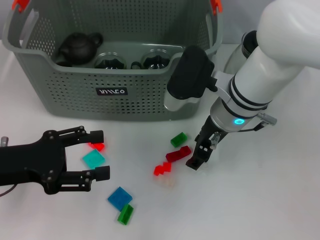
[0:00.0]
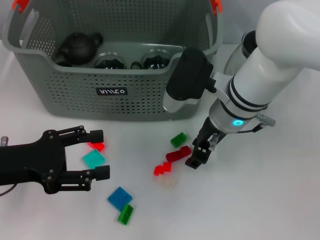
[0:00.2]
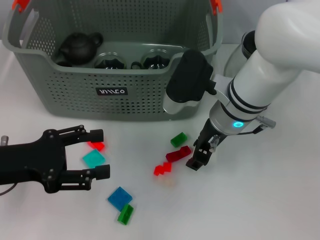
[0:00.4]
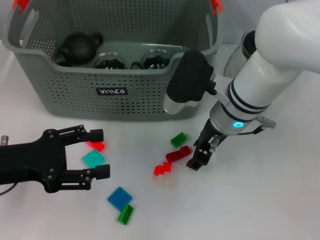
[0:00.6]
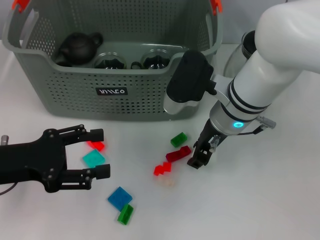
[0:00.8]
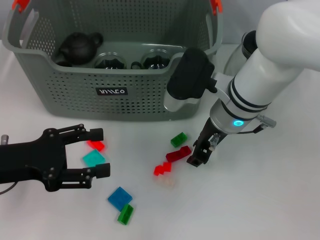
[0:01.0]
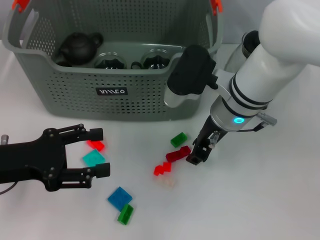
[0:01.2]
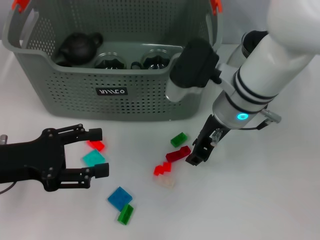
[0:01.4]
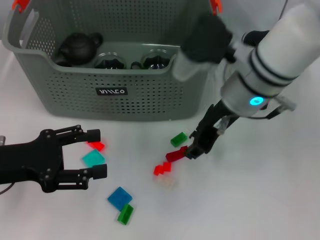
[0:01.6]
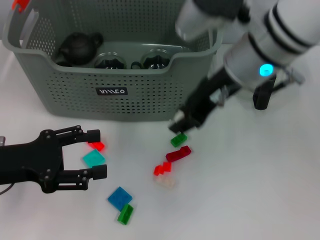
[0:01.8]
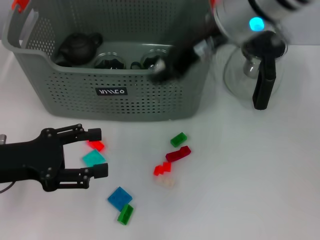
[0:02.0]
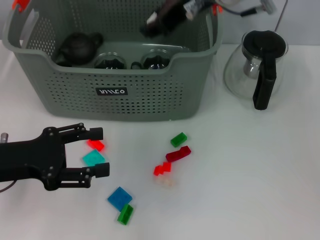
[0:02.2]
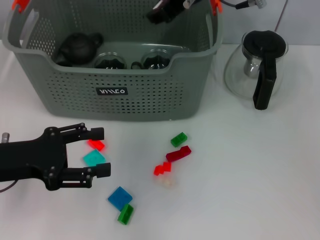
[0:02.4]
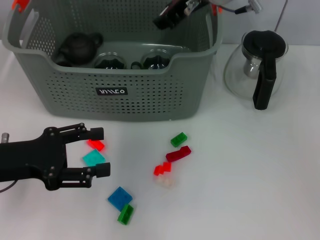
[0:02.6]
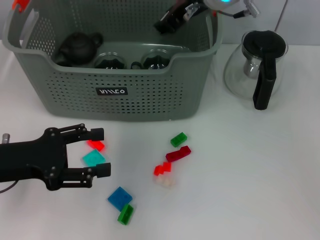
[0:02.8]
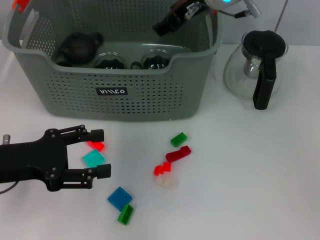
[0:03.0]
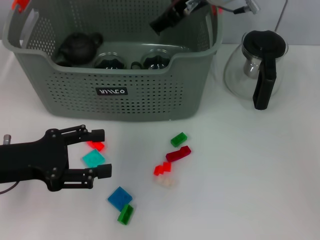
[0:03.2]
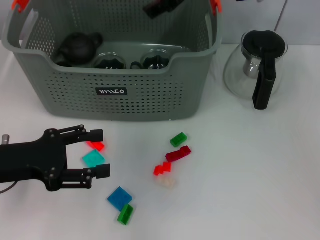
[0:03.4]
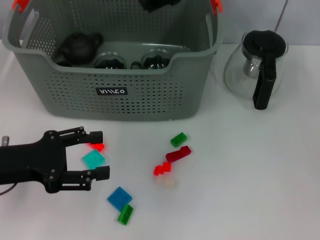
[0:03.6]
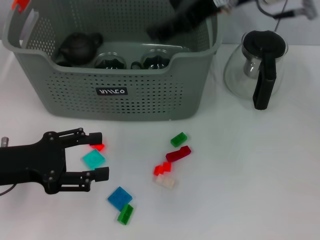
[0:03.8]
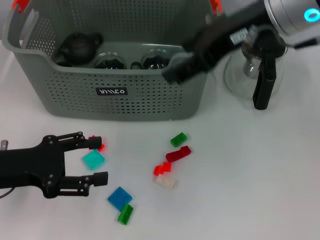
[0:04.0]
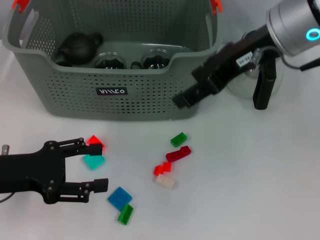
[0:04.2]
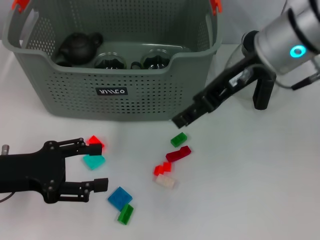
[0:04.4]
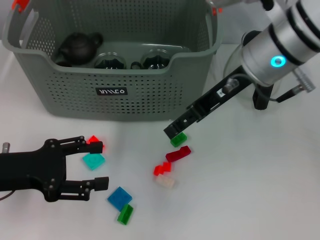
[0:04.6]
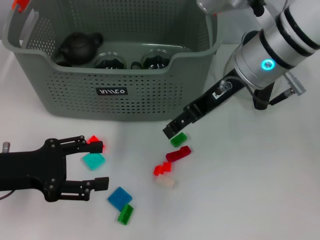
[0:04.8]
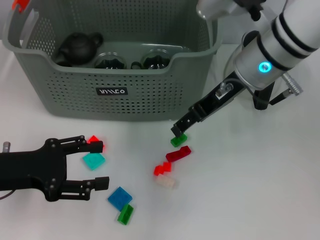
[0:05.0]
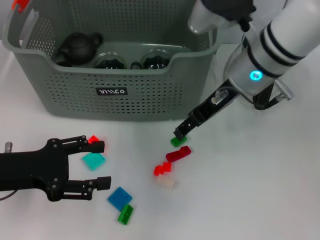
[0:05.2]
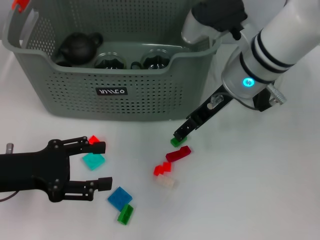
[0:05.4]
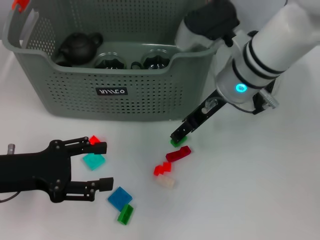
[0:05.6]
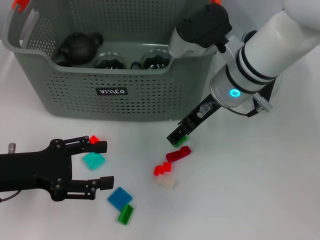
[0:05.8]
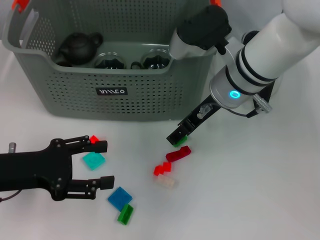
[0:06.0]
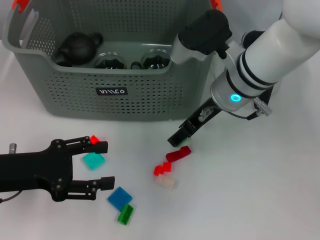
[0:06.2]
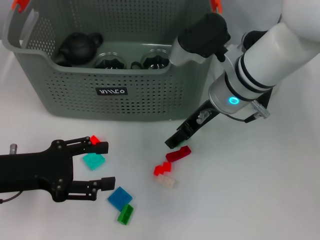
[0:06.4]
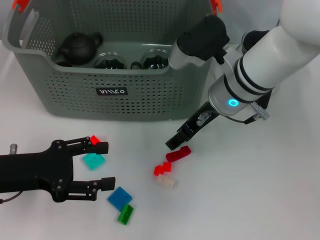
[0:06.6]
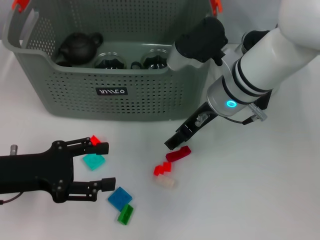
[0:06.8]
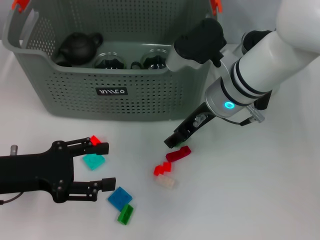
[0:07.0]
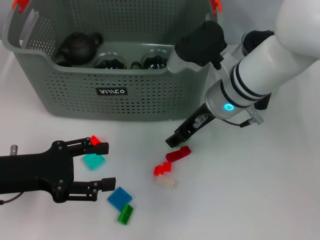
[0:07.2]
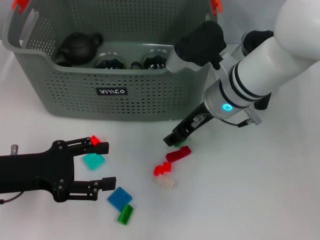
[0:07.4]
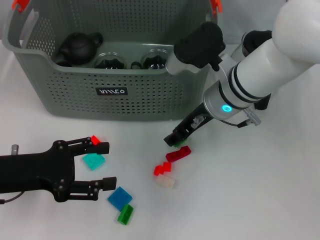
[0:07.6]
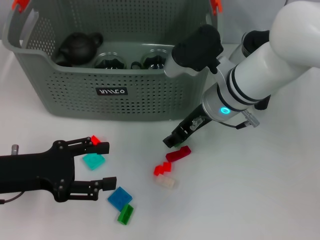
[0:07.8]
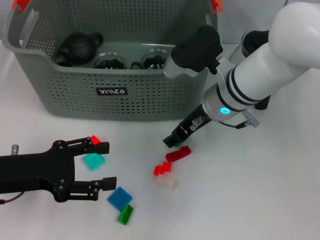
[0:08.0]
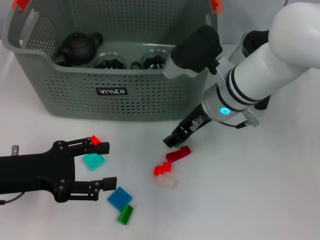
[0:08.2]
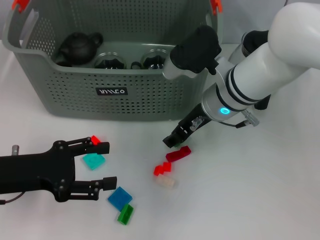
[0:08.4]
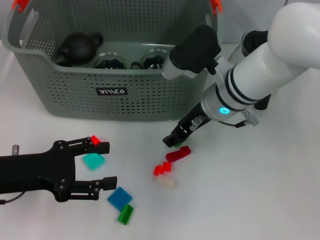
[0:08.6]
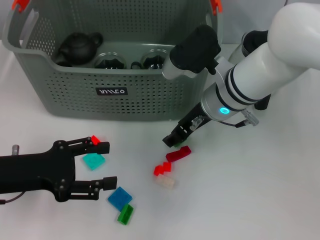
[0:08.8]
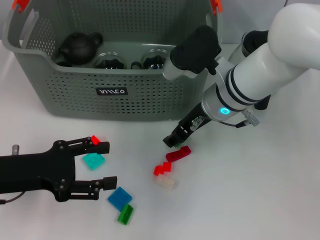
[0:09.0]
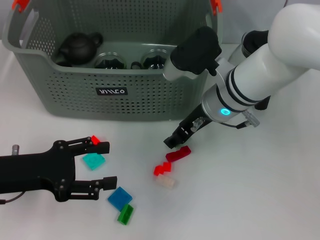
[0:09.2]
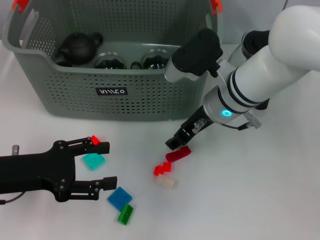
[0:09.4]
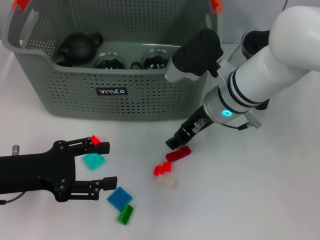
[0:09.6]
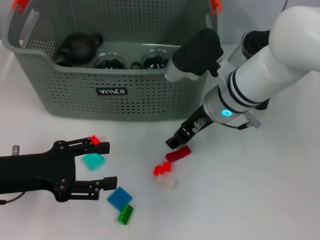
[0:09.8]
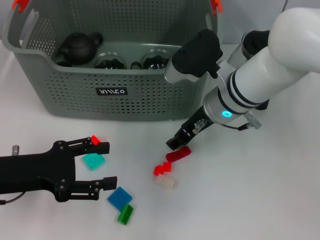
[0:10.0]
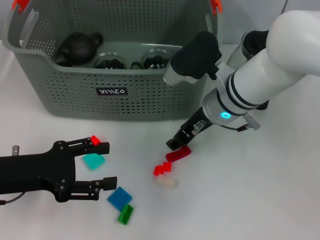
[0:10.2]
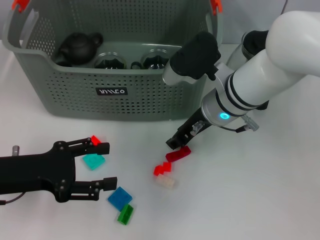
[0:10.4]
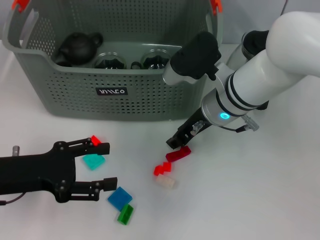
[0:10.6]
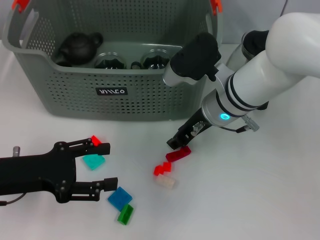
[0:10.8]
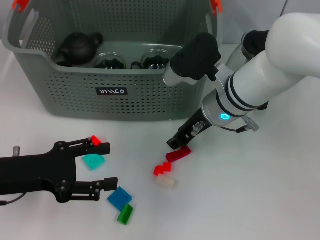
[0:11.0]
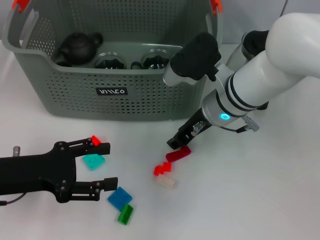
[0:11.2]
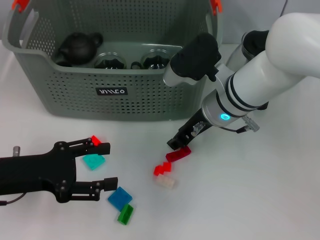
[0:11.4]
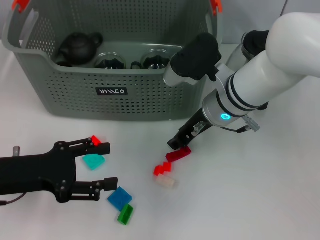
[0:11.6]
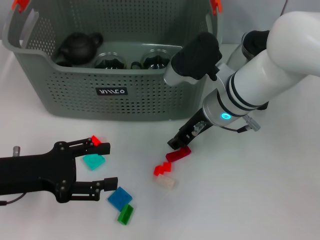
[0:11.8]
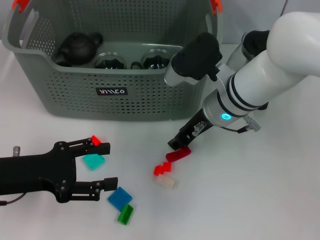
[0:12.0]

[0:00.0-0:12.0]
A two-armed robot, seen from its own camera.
Task of the whole recording: pick up the teacup on the table and place it into the storage bin, pick up the block on the table and place it into the storage bin.
Step, 0:01.0 to 0:02.8: Place the white block in the storage box with right gripper.
0:00.0 to 0:01.6: The right gripper goes approximately 5 cm upward.
0:01.6 to 0:03.0: The right gripper shifts roughly 10 cm forward and upward.
0:03.0 to 0:04.4: The right gripper is displaced backward and to the right by roughly 10 cm, and opens up.
0:04.4 to 0:06.0: The right gripper heads downward, covering about 10 cm.
0:06.0 to 0:07.6: There are only small adjustments of the grippers.
0:07.6 to 0:12.0: The two grippers keep their place.

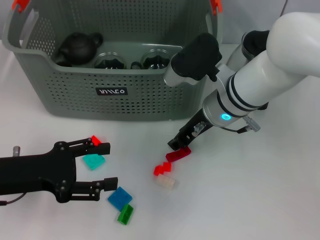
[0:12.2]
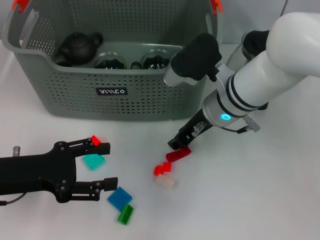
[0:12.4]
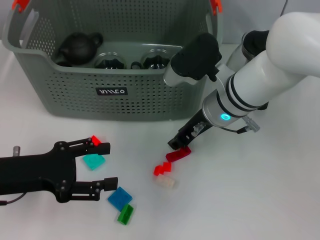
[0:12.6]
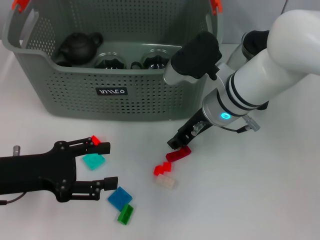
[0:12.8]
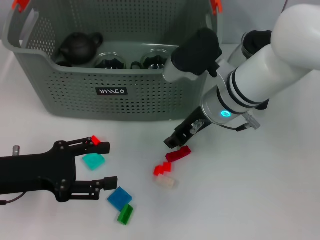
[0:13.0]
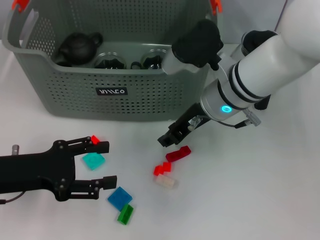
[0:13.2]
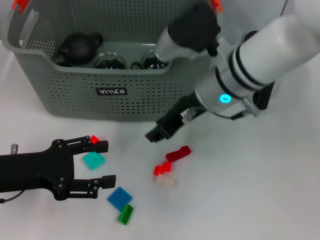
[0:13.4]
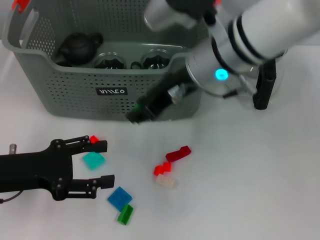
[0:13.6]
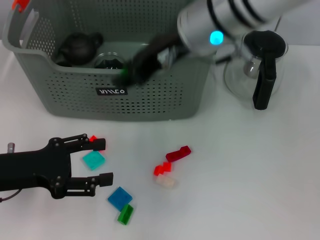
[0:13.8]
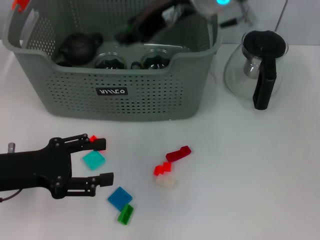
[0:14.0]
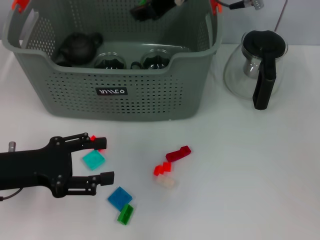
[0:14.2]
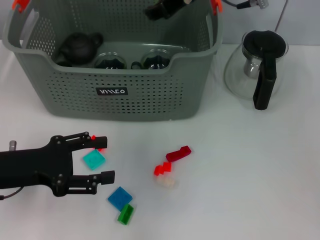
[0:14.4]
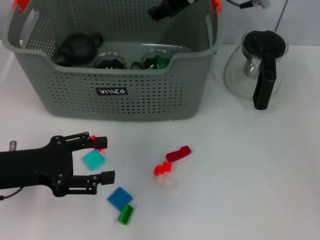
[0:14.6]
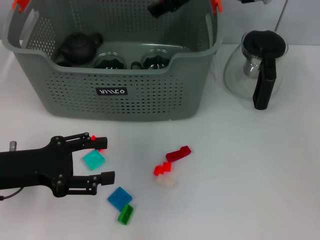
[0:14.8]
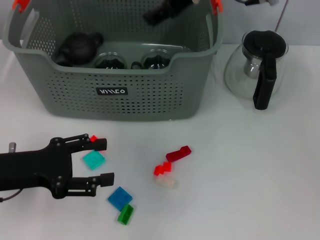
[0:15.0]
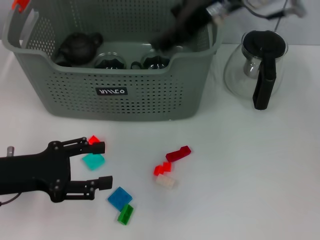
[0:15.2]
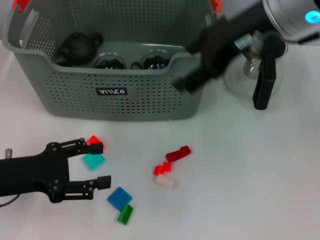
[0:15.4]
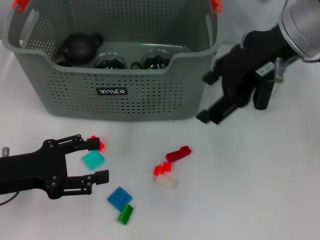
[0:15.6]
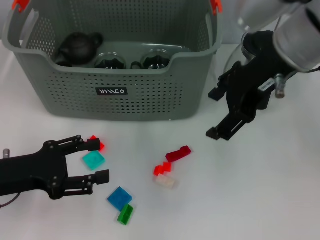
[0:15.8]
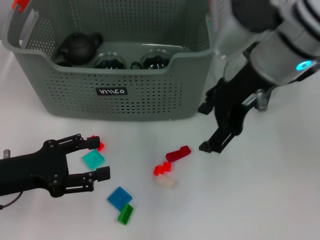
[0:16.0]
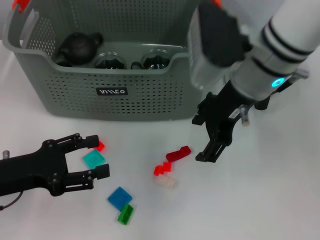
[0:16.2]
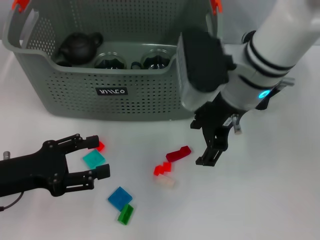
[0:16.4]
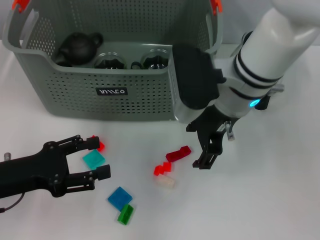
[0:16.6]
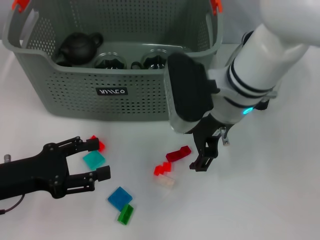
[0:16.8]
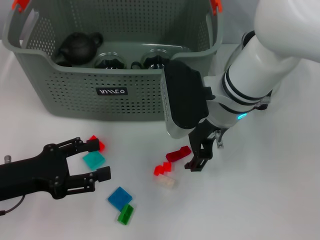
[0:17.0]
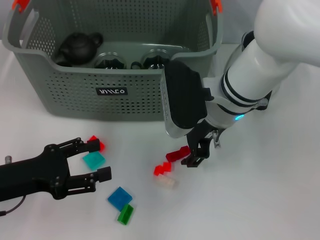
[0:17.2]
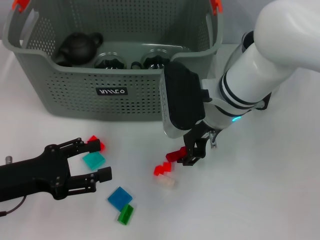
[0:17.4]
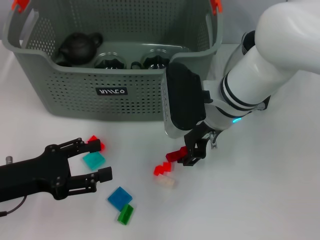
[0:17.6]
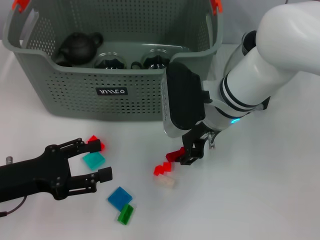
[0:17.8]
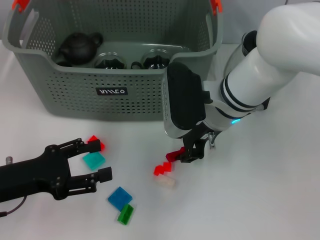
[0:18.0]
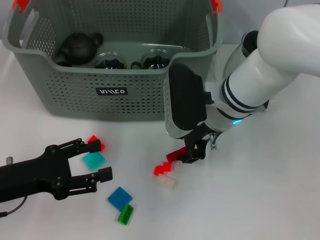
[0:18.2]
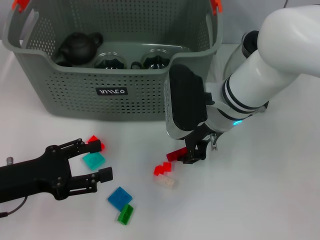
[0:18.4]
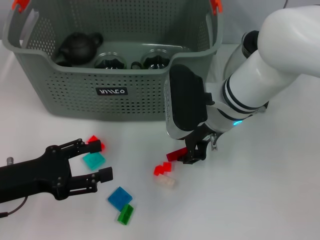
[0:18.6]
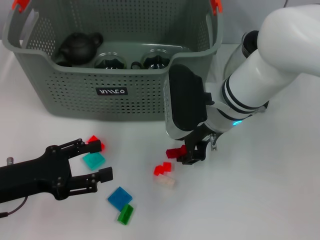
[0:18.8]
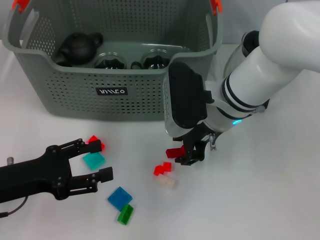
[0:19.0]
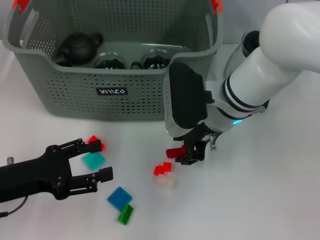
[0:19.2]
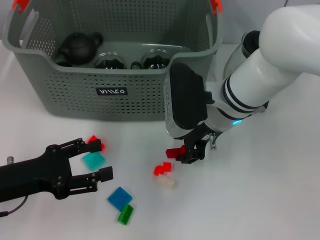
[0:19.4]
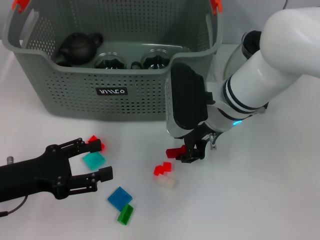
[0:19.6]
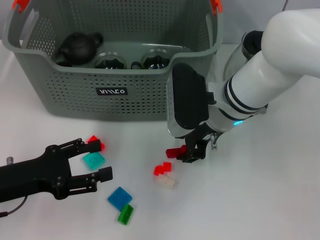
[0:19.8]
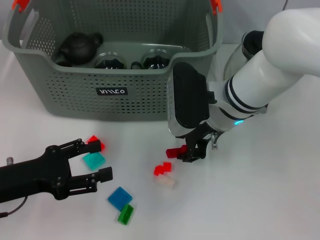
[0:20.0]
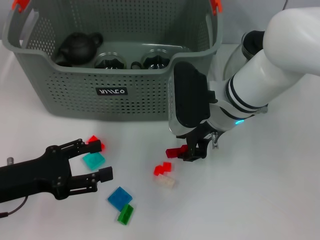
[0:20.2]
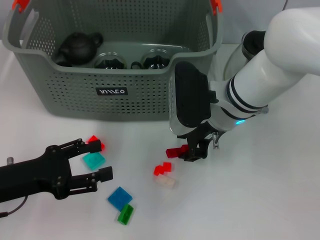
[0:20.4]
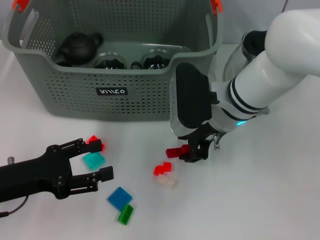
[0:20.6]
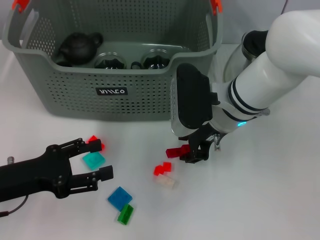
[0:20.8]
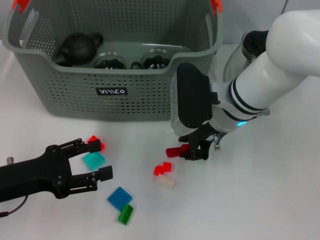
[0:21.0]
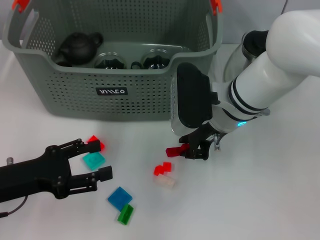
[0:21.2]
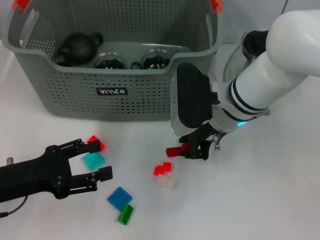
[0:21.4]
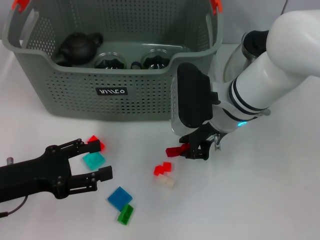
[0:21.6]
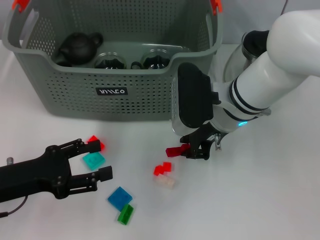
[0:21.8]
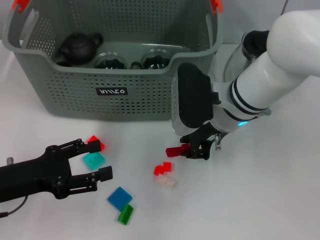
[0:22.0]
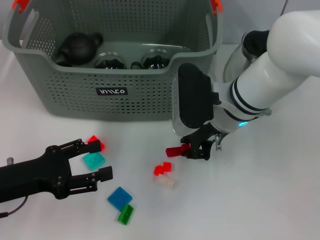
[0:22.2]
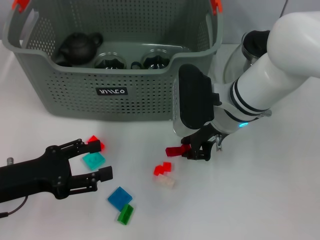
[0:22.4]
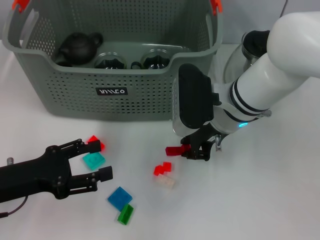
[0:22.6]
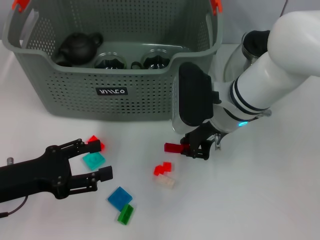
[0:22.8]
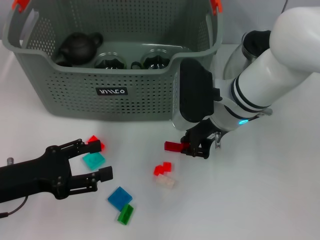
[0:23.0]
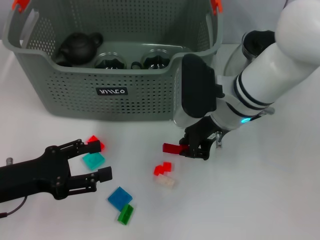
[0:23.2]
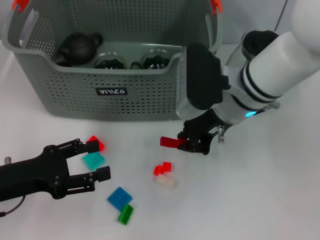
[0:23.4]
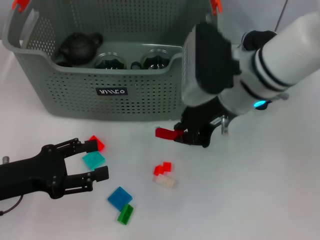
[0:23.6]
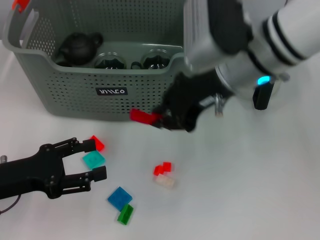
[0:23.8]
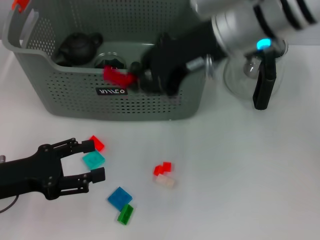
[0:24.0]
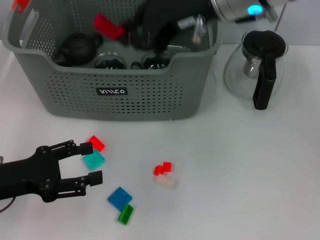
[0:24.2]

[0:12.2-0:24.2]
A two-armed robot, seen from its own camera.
Task of the whole recording: pick up the teacup on the table and place it into the storage bin, pick up the block on the table and place it into the storage bin.
Step, 0:12.6 to 0:14.6: Place the green block in the storage box with right gripper.
Step, 0:14.8 to 0:22.6: Grasp the red block with right gripper.
0:12.2 to 0:13.8: The right gripper travels upward by some 15 cm.
0:13.8 to 0:15.2: The right gripper shifts some 5 cm to the right, and opens its fingers.
0:15.2 to 0:16.6: The right gripper travels downward by approximately 10 cm.
0:16.6 to 0:18.2: The right gripper closes up.
0:18.2 to 0:22.6: The two grippers keep their place.
0:22.6 to 0:24.2: The right gripper goes roughly 20 cm upward.
